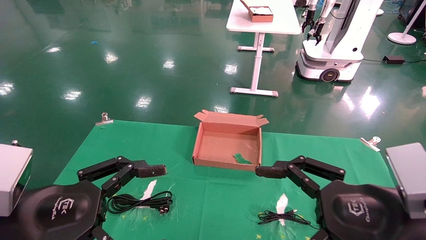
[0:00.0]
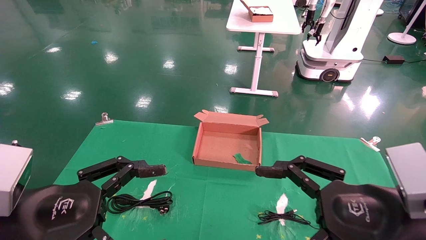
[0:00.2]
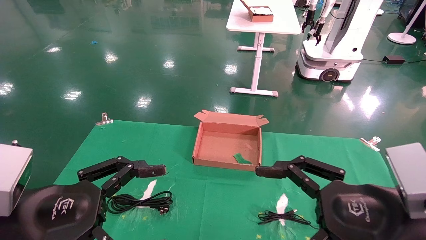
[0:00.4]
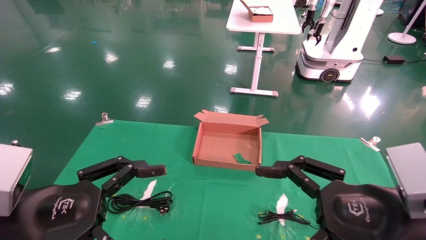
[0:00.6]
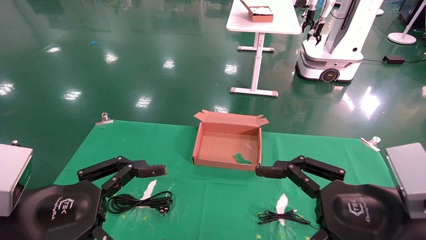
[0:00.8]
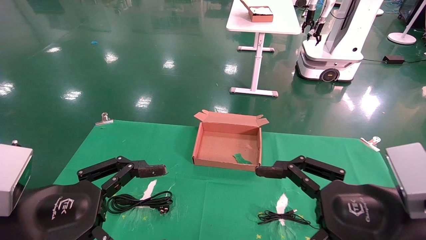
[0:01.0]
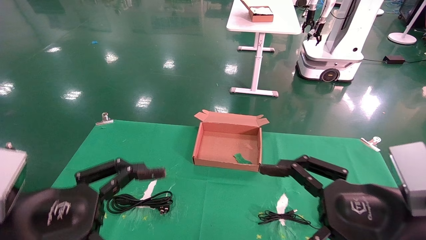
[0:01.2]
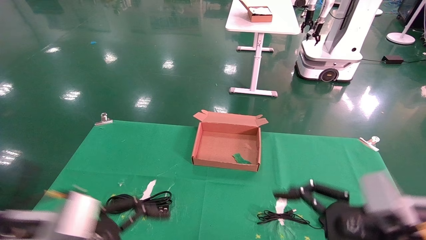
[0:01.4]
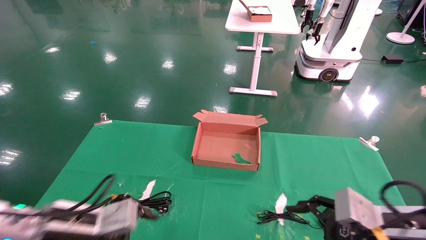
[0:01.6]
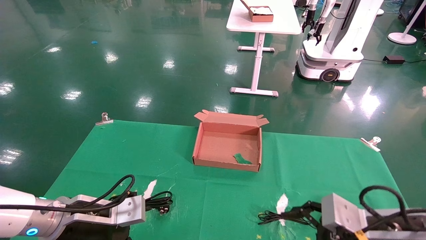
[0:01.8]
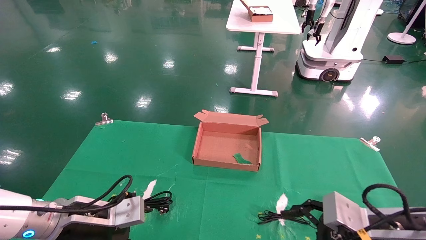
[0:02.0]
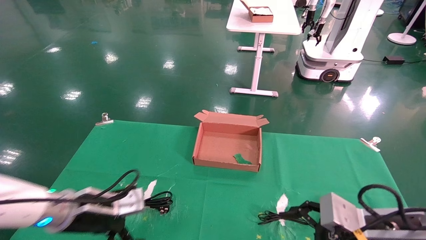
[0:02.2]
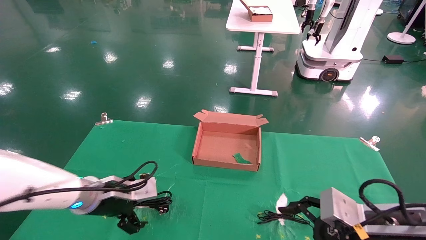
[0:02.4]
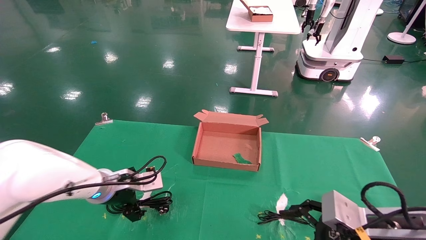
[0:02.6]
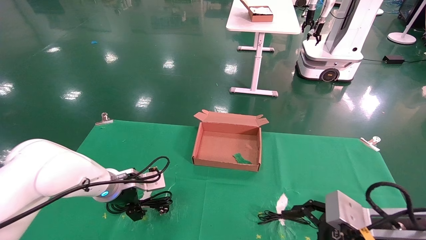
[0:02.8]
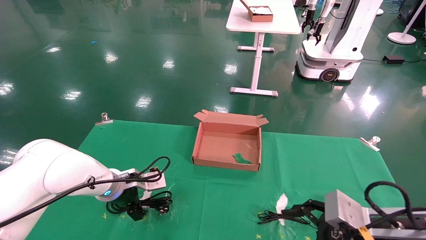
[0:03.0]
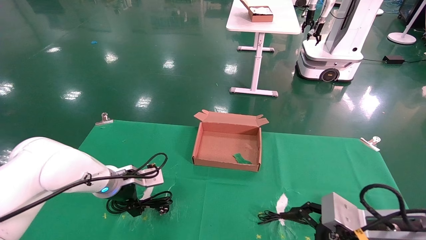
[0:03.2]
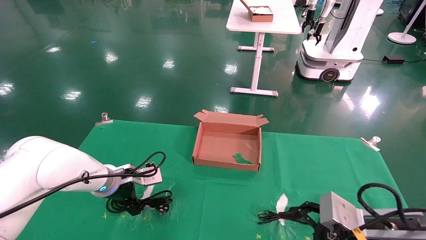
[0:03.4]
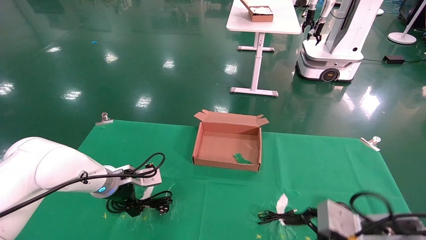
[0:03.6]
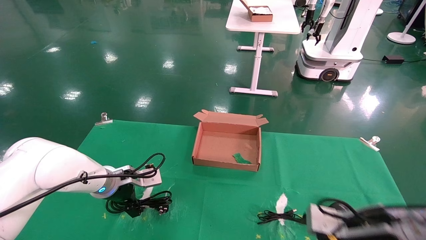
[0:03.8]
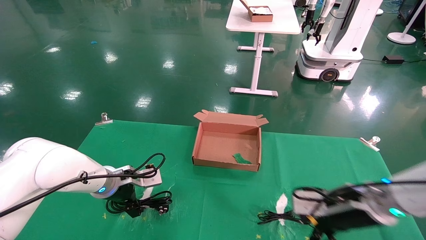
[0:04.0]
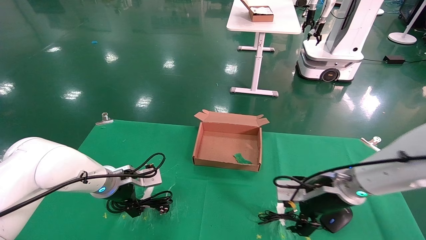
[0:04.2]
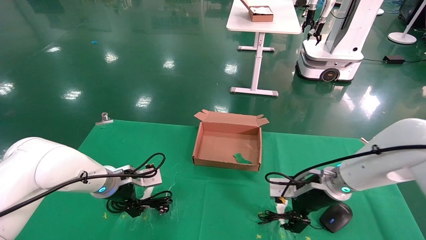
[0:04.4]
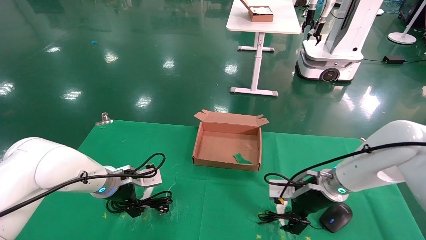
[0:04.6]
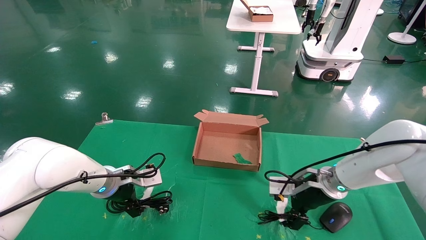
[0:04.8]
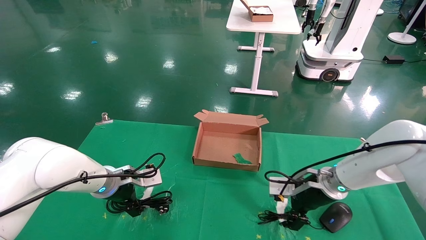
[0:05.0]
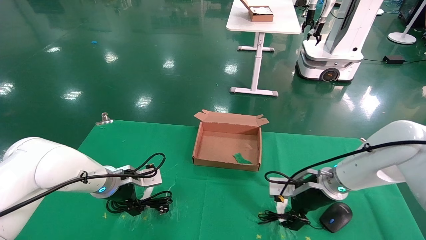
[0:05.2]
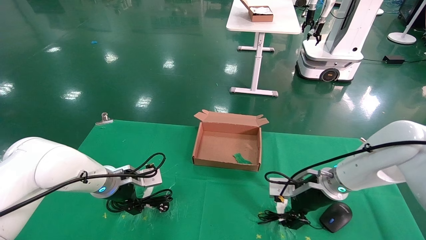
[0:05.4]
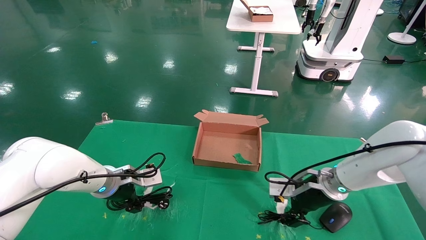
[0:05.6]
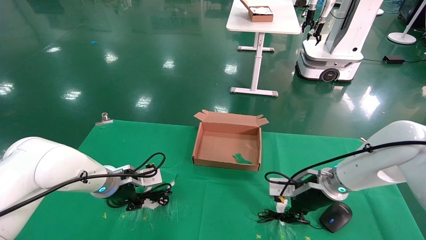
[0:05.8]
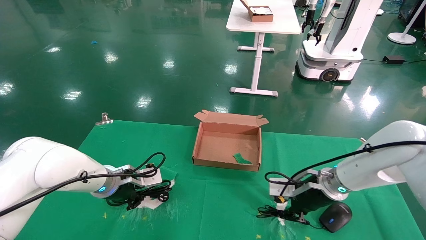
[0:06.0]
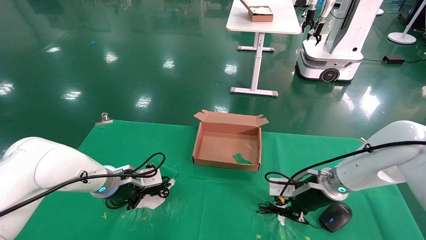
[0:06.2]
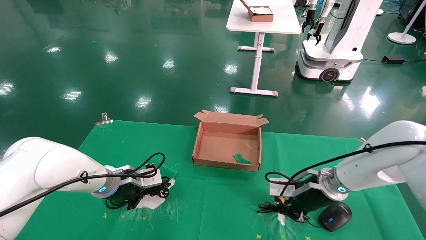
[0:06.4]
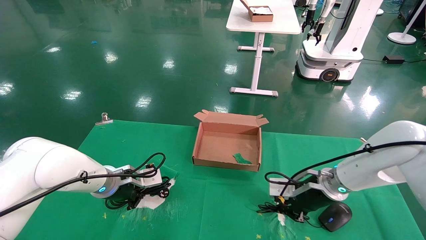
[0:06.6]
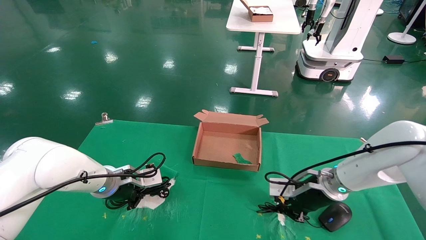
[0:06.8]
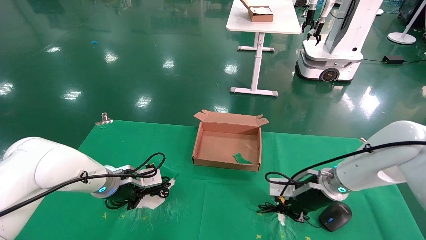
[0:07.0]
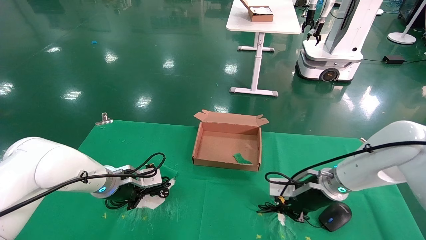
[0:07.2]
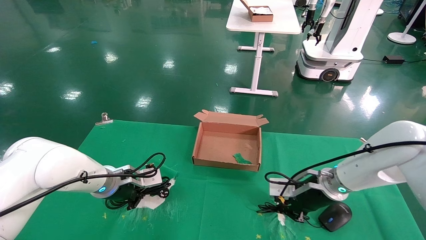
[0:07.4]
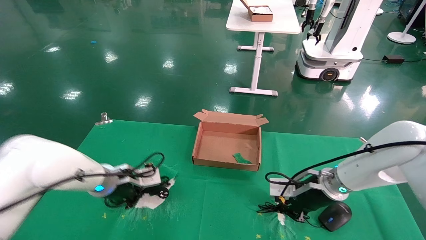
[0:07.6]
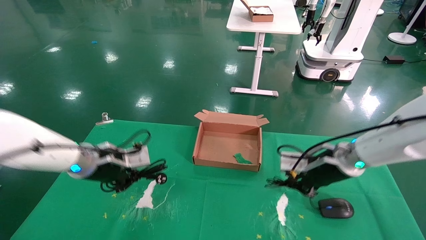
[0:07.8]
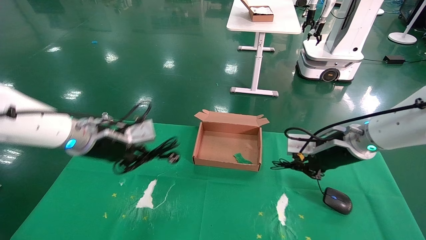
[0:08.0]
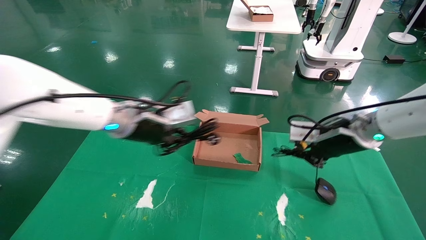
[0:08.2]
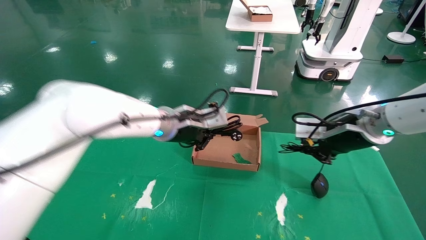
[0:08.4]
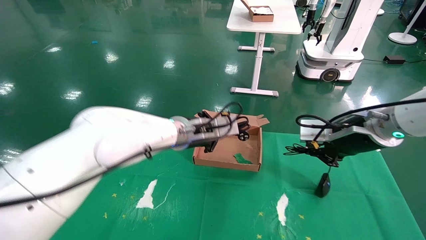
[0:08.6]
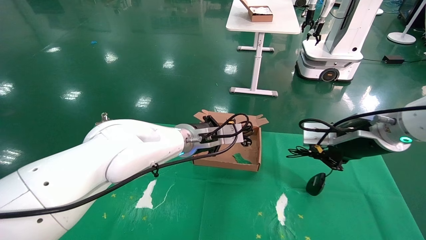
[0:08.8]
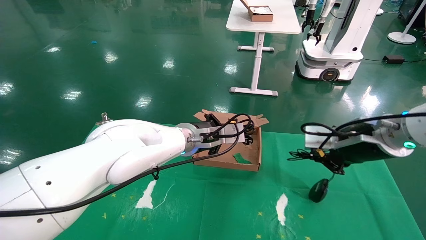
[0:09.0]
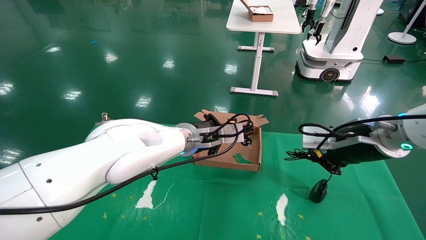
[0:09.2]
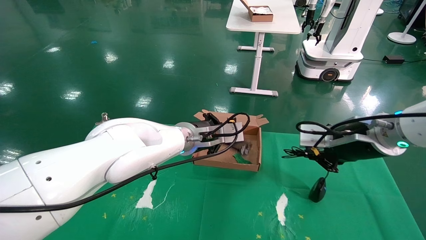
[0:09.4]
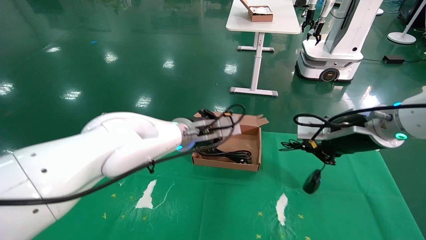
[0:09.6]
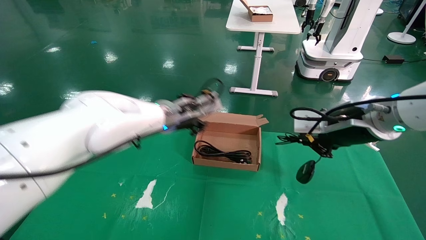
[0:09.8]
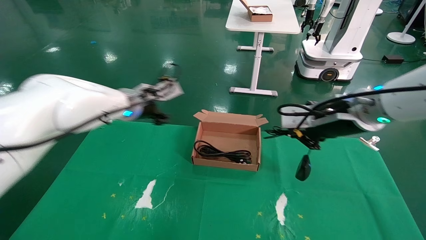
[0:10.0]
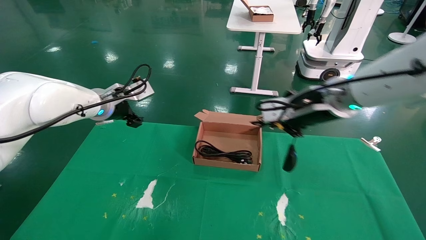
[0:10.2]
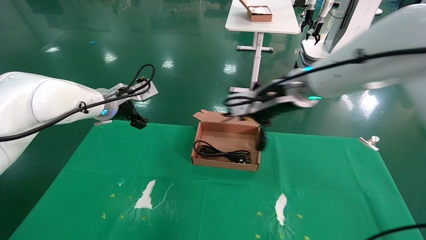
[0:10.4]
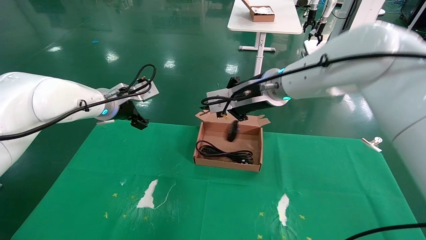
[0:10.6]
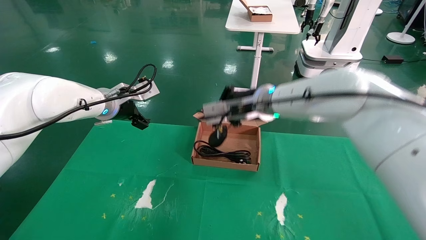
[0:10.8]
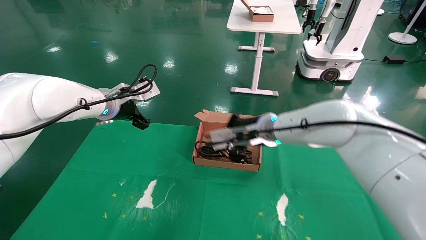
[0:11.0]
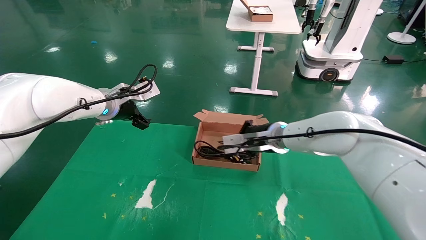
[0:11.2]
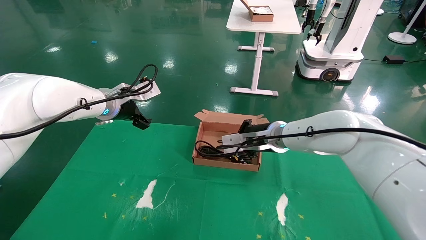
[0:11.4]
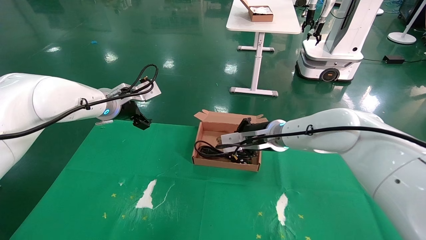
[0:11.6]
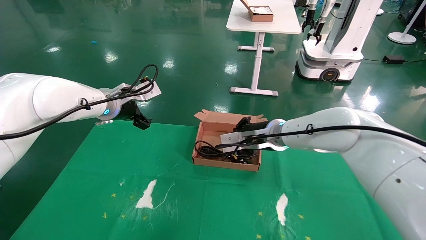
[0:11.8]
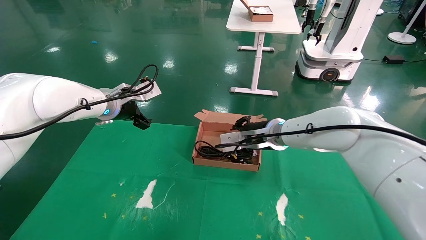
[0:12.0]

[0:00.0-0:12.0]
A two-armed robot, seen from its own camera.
Step, 0:01.0 to 0:07.6: Grab and lift both the mouse and power cord from the accessory packaging area at the same time.
0:00.0 to 0:01.6: The left gripper moves forward and downward, some 10 cm. Meanwhile the right gripper heads downward, covering some 5 cm.
0:01.6 to 0:03.0: The left gripper travels forward by some 15 cm.
0:03.0 to 0:04.4: The right gripper heads forward, covering approximately 15 cm.
0:04.4 to 0:06.0: The right gripper closes. The left gripper closes up.
0:06.0 to 0:07.6: The right gripper closes up.
0:07.6 to 0:09.0: The right gripper is displaced upward and backward by about 15 cm. Meanwhile the left gripper moves to the right, about 20 cm.
0:09.0 to 0:10.4: The left gripper moves to the left and upward, approximately 20 cm, and opens its fingers, while the right gripper is displaced to the left, upward and forward by roughly 15 cm.
0:10.4 to 0:12.0: The right gripper is displaced downward and forward by about 15 cm.

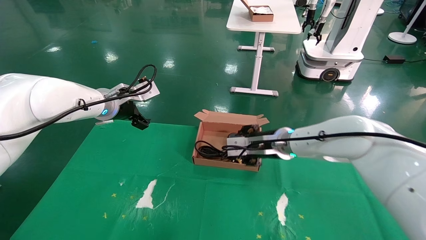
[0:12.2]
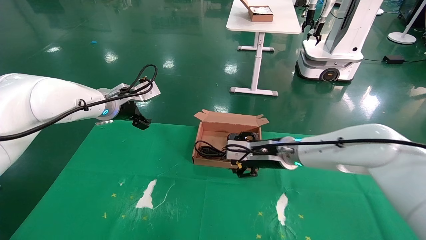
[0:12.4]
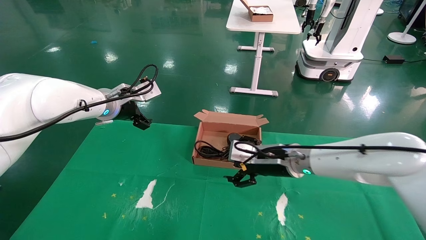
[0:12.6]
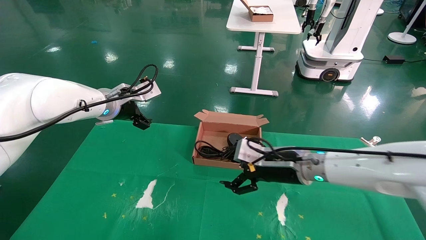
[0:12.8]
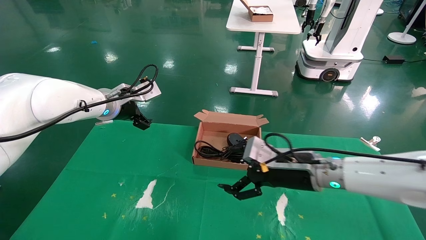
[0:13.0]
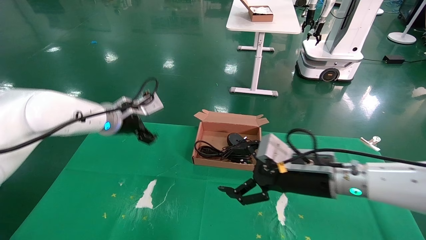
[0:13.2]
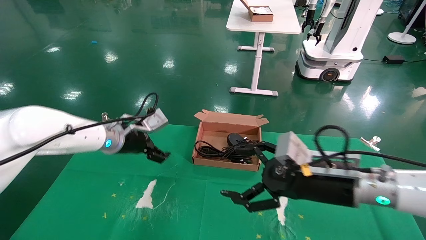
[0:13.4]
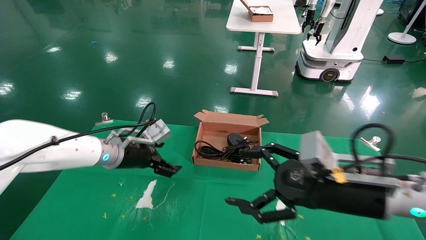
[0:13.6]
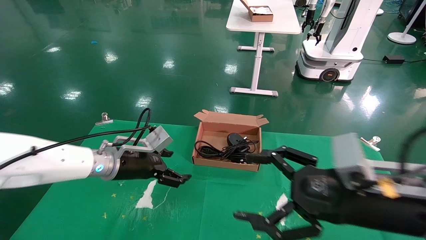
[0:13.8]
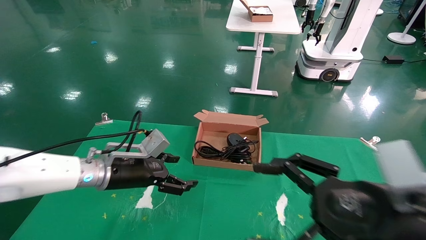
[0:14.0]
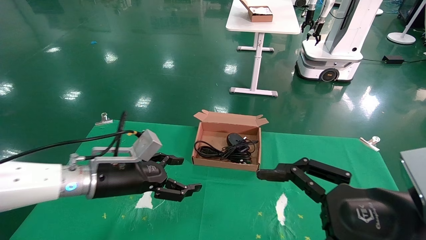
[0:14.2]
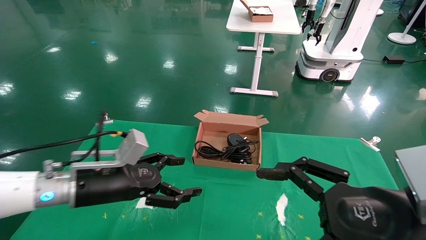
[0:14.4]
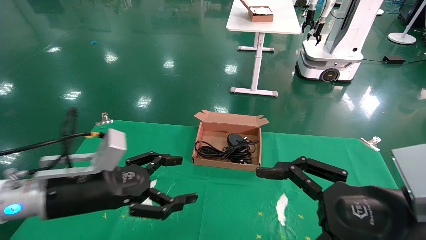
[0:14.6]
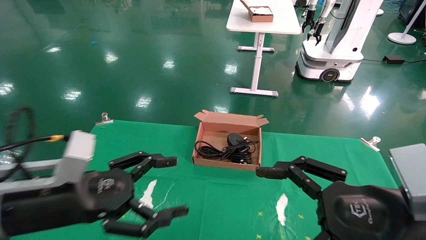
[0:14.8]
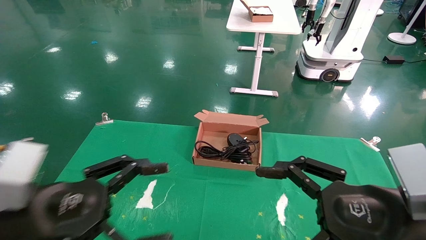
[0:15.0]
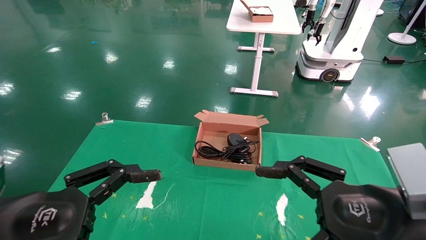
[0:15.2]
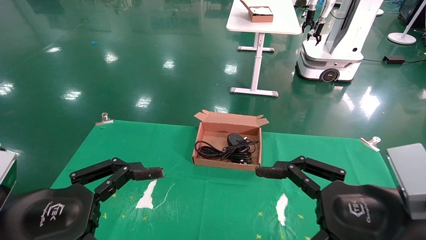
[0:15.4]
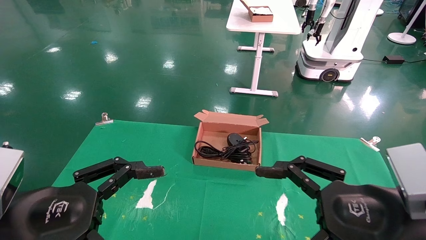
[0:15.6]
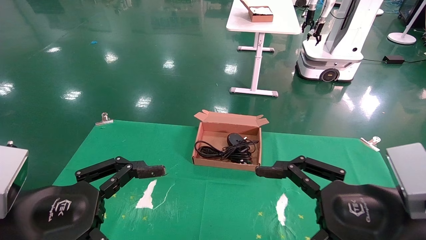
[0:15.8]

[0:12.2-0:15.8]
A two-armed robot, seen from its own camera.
0:12.2 to 0:14.0: The right gripper moves backward and to the right, roughly 30 cm, and opens up. The left gripper travels downward and backward by about 15 cm.
0:14.0 to 0:15.8: The left gripper heads backward, covering approximately 20 cm.
